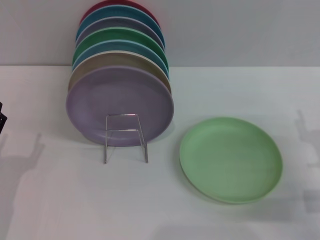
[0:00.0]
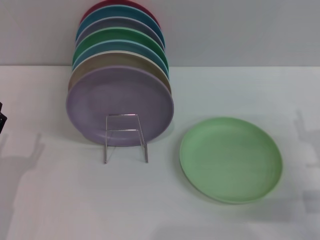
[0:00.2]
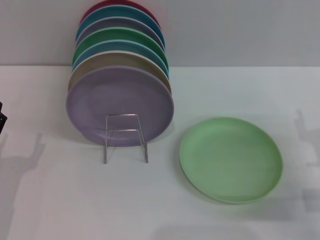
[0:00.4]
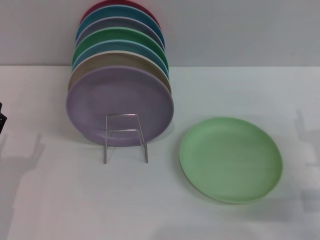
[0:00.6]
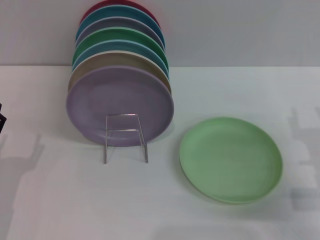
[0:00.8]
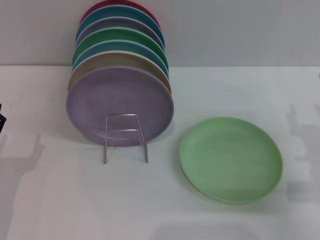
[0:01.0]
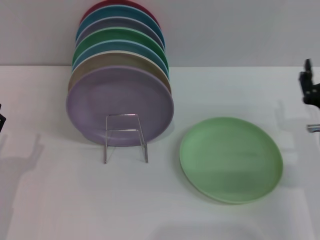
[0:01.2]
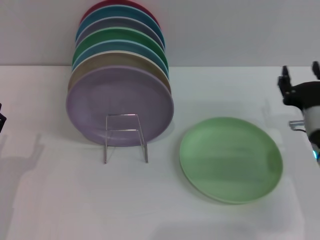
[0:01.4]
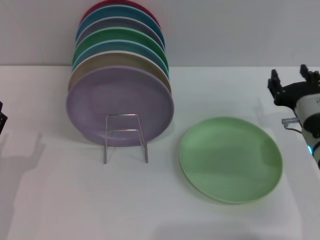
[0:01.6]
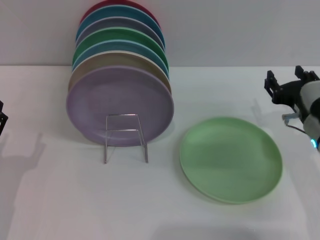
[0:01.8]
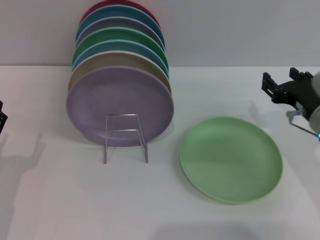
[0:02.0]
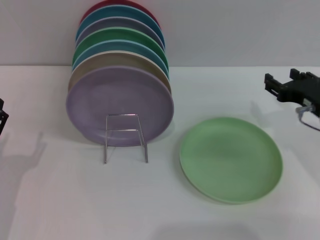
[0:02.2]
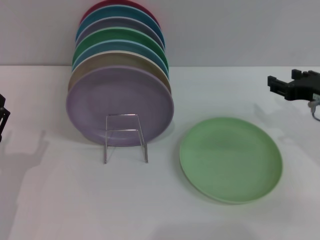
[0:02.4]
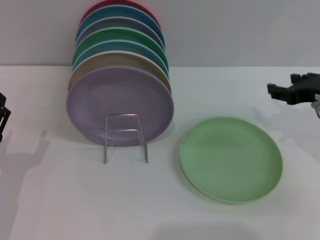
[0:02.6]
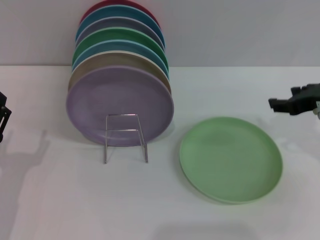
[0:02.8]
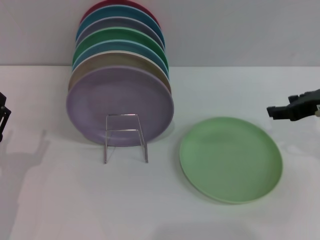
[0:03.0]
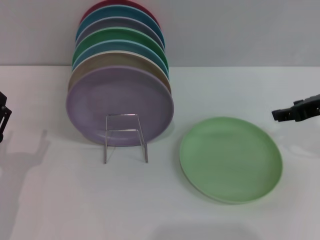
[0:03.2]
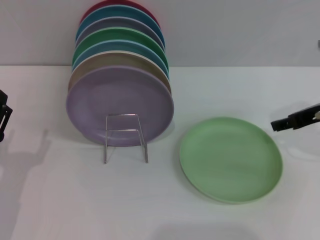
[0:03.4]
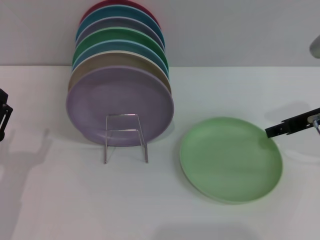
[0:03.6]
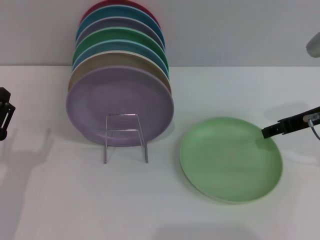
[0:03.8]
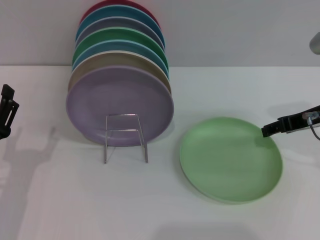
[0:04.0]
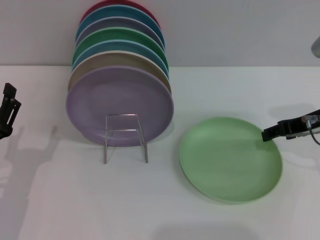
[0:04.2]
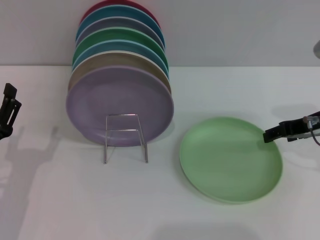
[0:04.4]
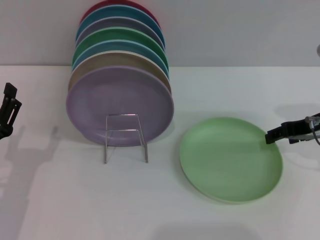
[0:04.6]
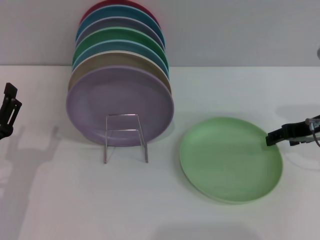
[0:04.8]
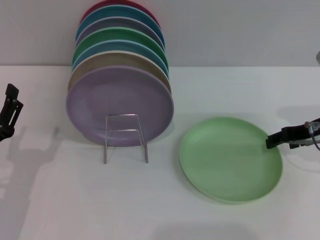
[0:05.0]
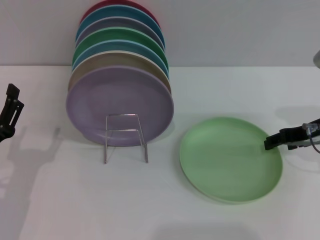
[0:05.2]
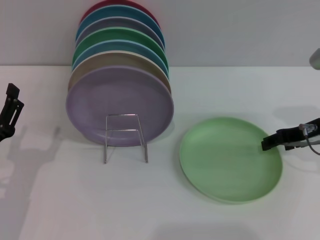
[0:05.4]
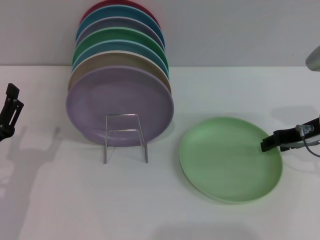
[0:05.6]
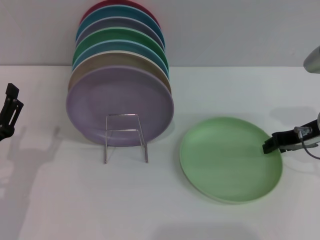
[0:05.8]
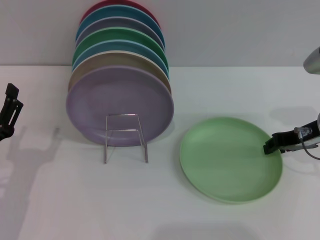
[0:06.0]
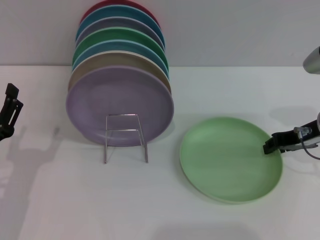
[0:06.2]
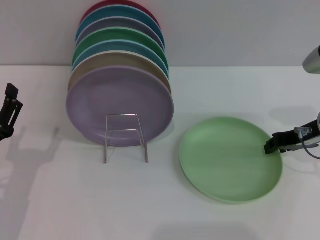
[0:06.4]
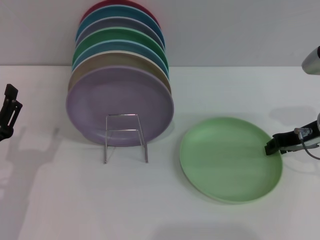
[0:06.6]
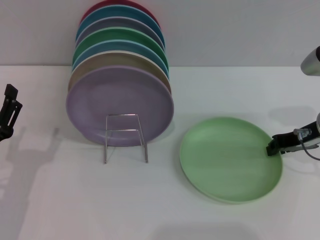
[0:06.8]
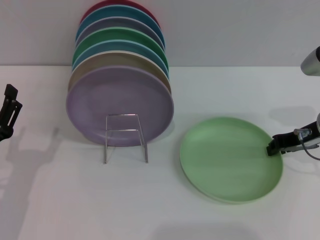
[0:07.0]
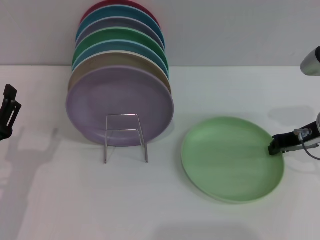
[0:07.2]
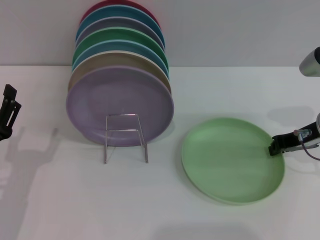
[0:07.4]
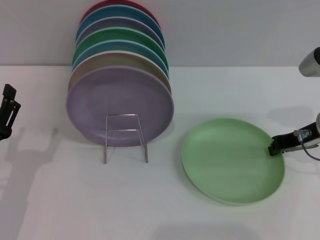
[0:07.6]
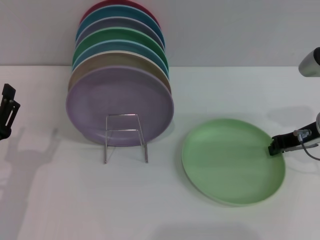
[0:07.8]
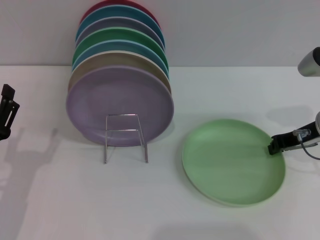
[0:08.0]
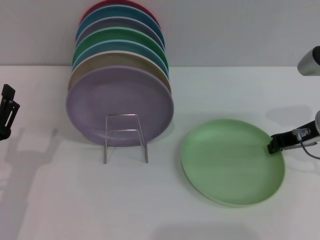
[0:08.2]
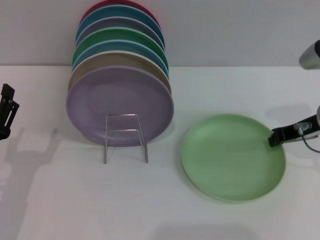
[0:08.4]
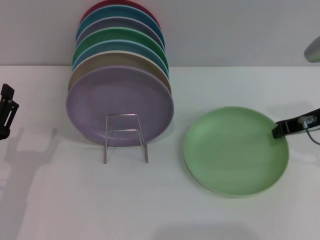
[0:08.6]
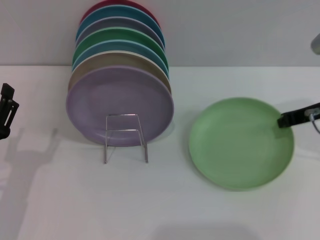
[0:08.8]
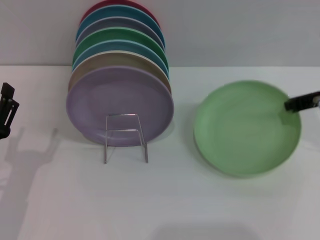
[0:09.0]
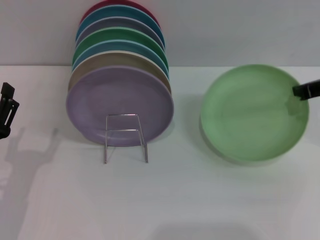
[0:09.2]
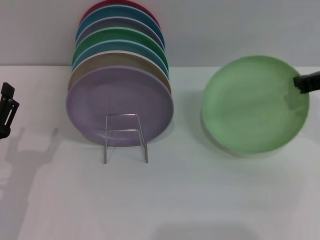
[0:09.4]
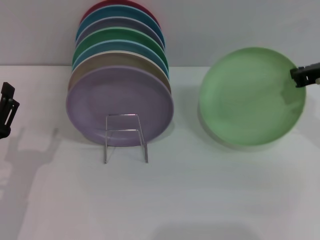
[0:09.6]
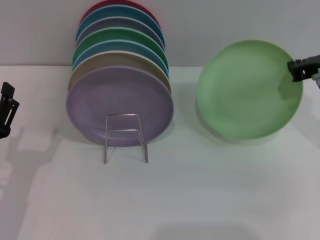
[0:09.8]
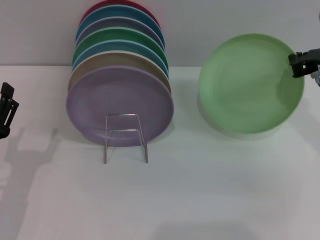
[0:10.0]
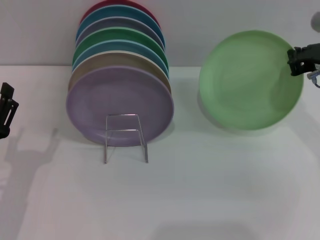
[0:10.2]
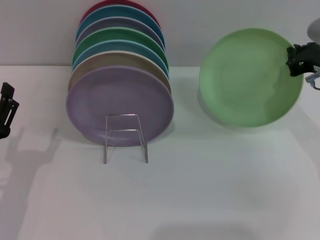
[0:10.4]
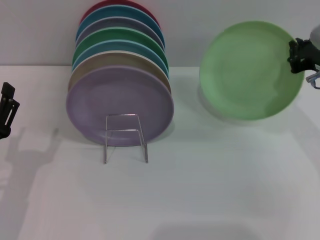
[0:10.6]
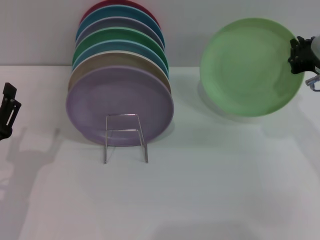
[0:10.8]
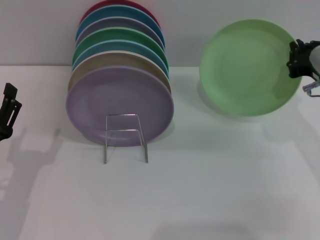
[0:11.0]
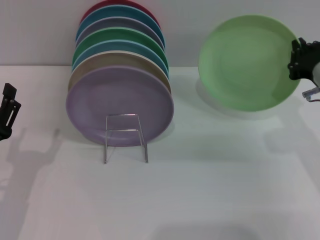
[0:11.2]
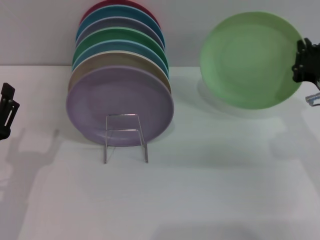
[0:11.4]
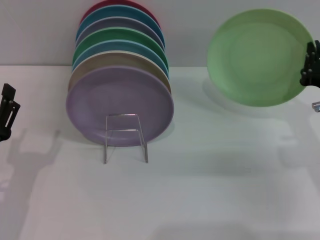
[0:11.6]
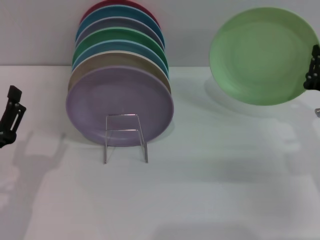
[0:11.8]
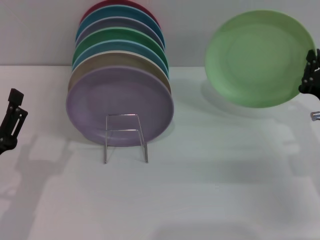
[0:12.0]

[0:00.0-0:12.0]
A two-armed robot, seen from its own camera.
Task of the whole recording: Grip the plate with one hand, pass it to the other, then set it on the shelf.
Step, 0:00.0 to 0:09.0: Pick up the plate with the right gripper.
0:00.0 to 0:01.6: The right gripper heads to the left and forward, covering approximately 10 cm.
0:01.6 to 0:03.0: The right gripper travels upward and to the right by approximately 10 cm.
0:04.4 to 0:06.0: The right gripper closes up.
0:06.0 to 0:07.6: The right gripper closes up.
0:07.6 to 0:09.0: The right gripper heads upward, covering roughly 5 cm.
0:10.4 to 0:12.0: The right gripper shifts about 10 cm downward and backward.

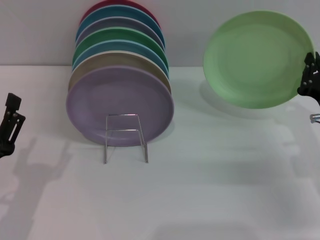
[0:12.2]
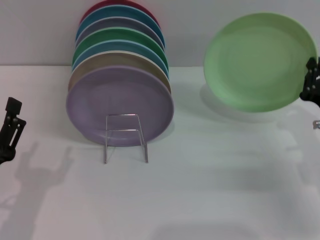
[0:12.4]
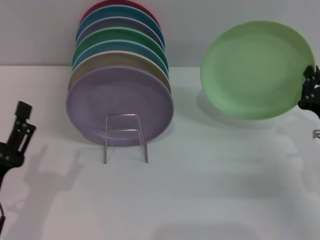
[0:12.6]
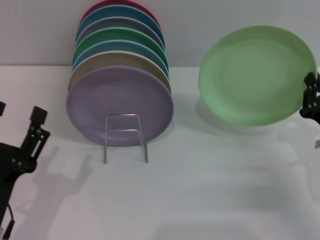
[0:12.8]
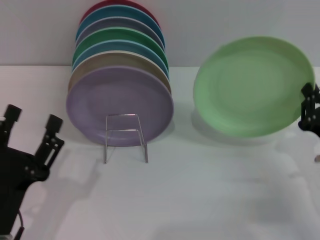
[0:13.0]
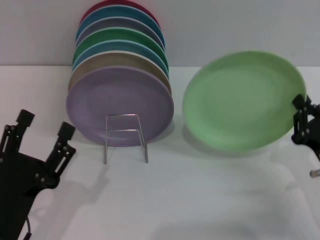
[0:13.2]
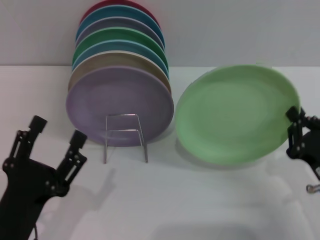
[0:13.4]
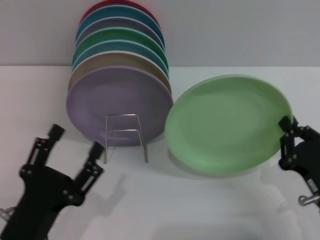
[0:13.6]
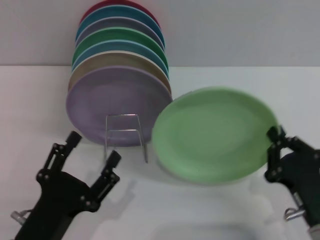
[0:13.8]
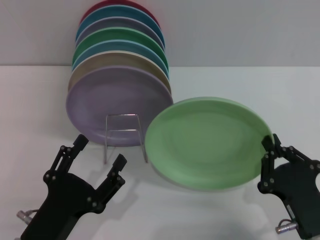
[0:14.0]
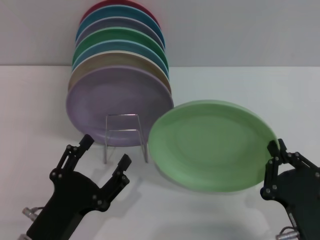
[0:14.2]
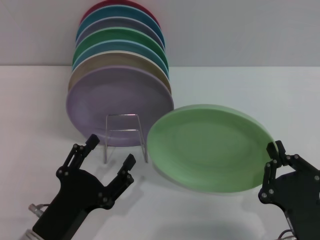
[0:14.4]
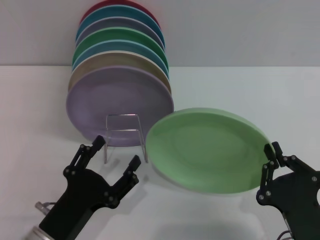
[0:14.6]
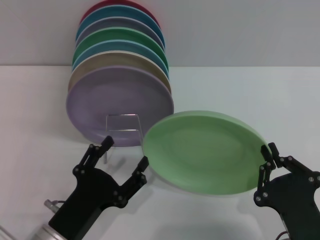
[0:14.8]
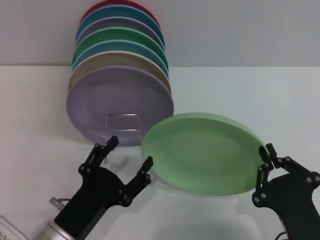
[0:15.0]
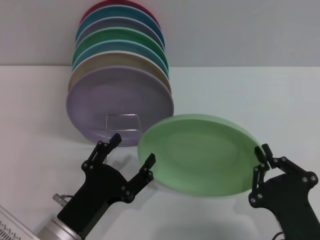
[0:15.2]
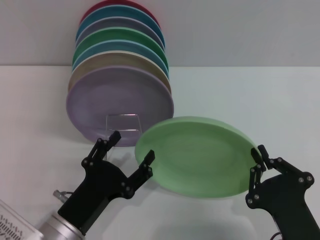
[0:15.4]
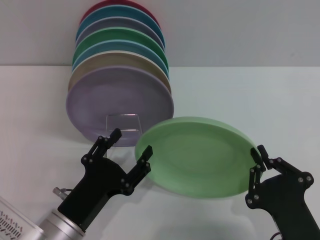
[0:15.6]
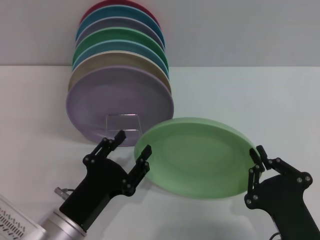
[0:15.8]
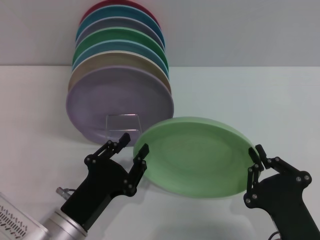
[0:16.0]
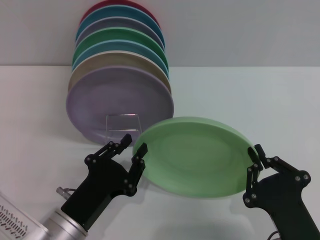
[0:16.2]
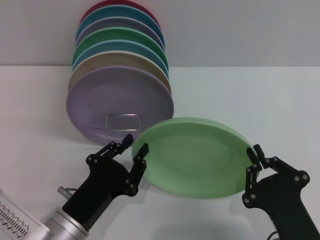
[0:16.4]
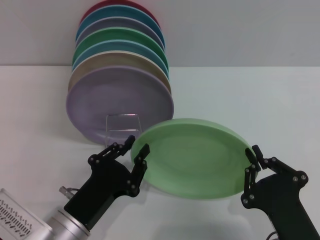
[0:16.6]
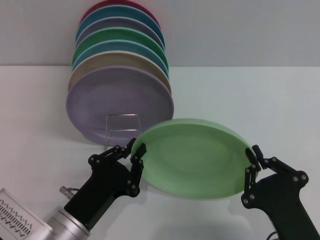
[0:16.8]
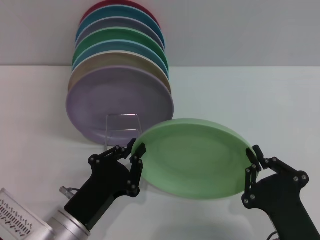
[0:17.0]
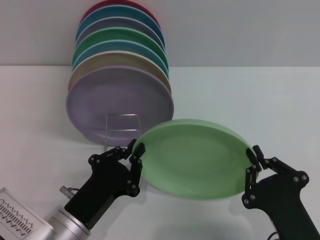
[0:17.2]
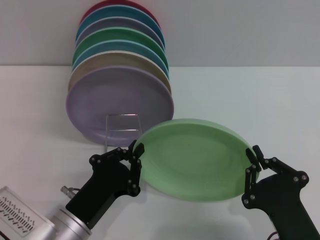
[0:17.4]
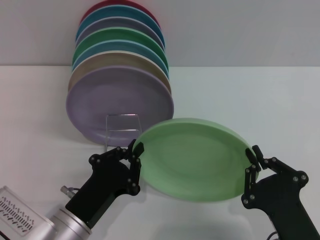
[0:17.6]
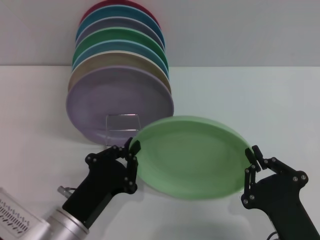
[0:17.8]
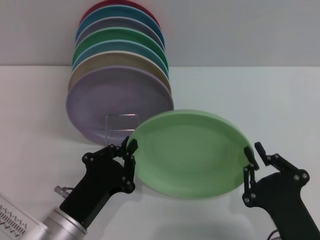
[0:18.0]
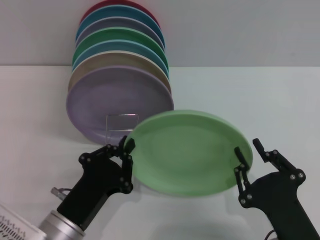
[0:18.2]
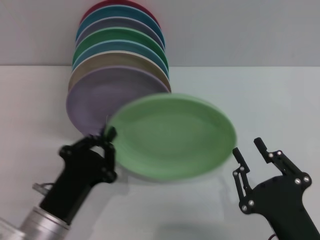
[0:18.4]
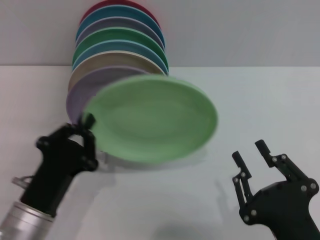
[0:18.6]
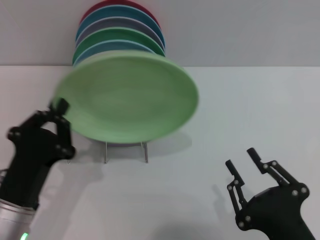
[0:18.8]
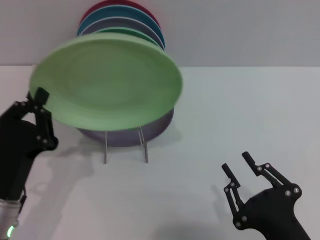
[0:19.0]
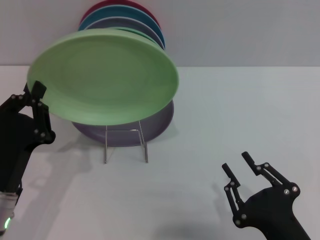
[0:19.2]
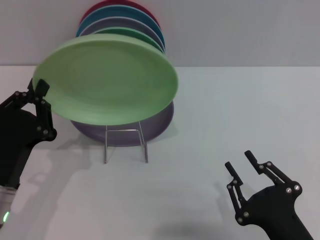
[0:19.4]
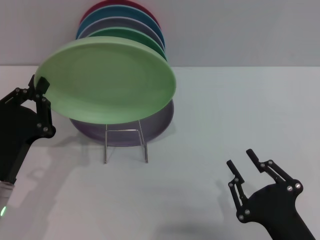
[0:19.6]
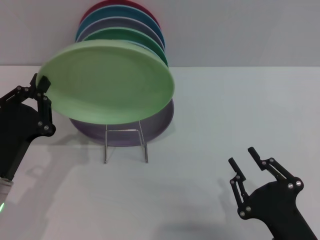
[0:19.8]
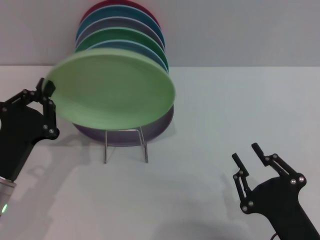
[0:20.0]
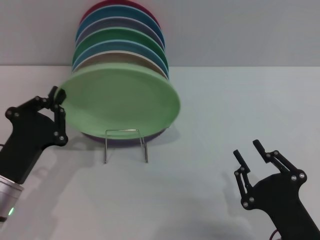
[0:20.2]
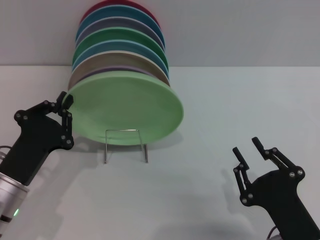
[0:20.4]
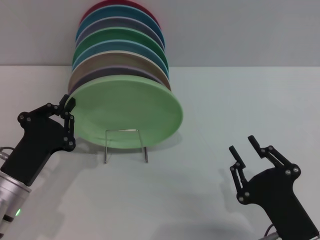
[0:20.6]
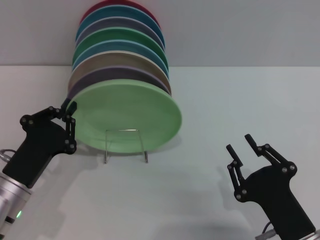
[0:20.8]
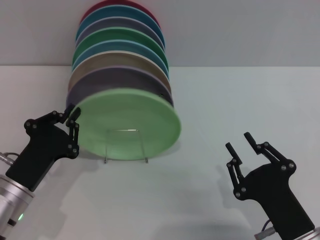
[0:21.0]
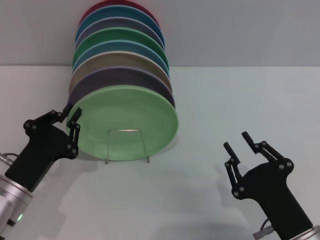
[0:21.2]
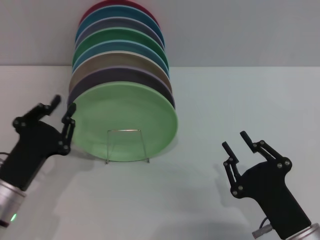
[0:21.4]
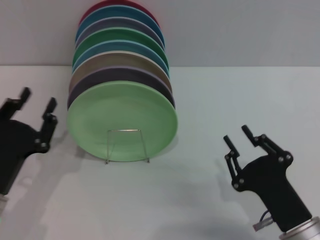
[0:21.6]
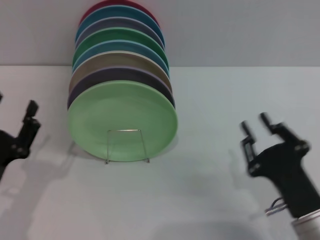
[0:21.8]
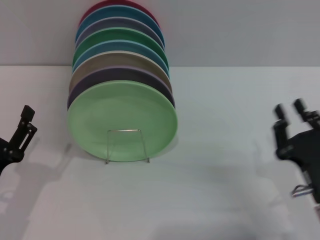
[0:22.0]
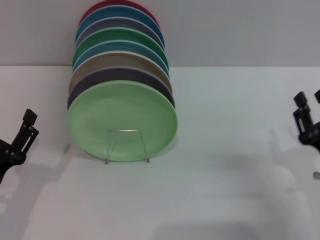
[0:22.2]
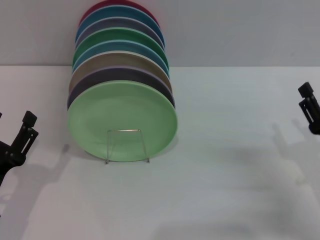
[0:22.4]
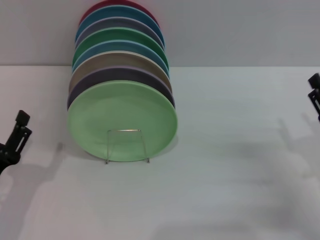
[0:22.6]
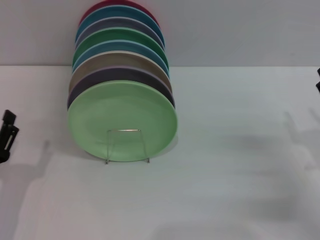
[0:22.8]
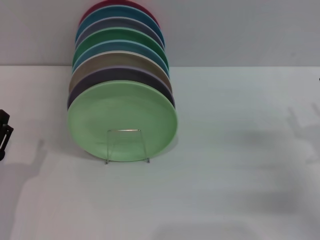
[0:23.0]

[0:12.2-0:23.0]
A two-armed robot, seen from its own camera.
Task of the whole recording: Grip the plate with one hand, pass it to the other, then set it on the shelf.
Step, 0:12.2 to 0:18.2: Pass the plate from the right gripper to the left gripper.
Step, 0:18.4 to 0:21.6: Place the plate on the shelf with the left gripper.
0:12.2 to 0:13.8: The left gripper is displaced to the right by roughly 5 cm, while the right gripper moves backward and to the left, roughly 15 cm.
0:13.8 to 0:15.2: The right gripper ends up about 5 cm from where it was.
0:15.2 to 0:16.8: The left gripper closes.
0:16.8 to 0:18.4: The left gripper closes up. The right gripper opens its fingers.
0:18.4 to 0:20.0: The left gripper is displaced to the left by roughly 5 cm.
0:20.0 to 0:21.4: The grippers move only a little.
0:21.4 to 0:23.0: The left gripper changes place by approximately 5 cm, and opens; the right gripper shifts approximately 15 cm to the right and forward, and opens.
